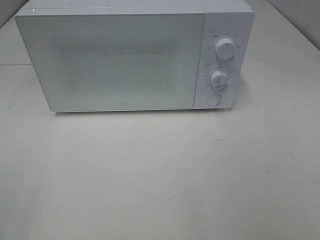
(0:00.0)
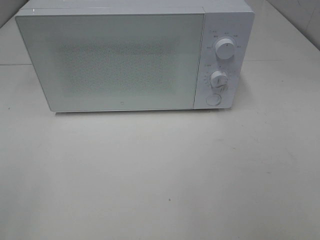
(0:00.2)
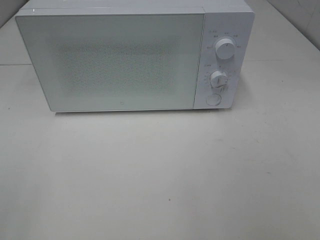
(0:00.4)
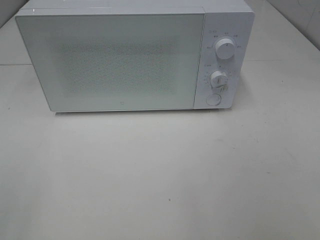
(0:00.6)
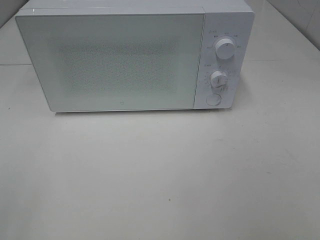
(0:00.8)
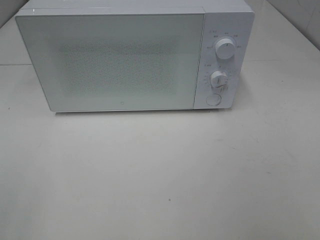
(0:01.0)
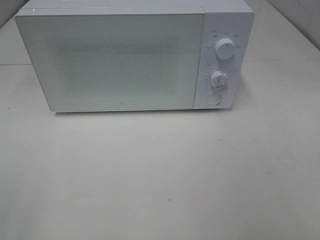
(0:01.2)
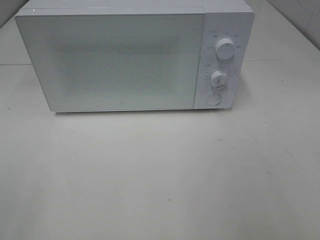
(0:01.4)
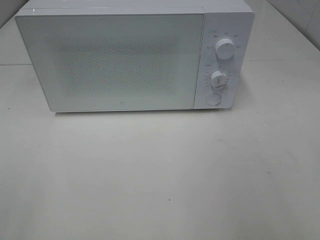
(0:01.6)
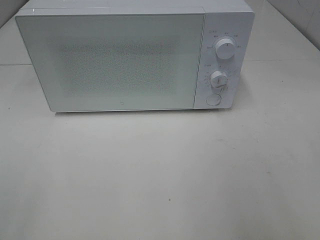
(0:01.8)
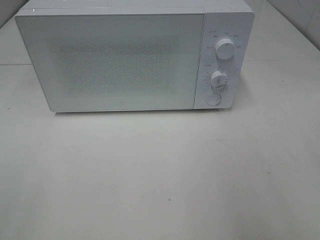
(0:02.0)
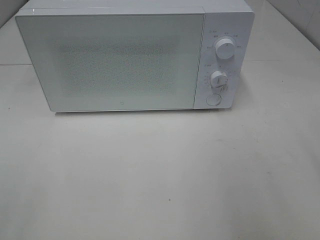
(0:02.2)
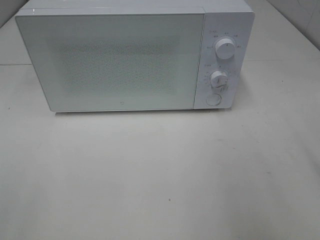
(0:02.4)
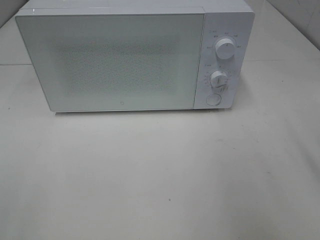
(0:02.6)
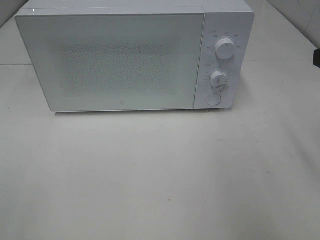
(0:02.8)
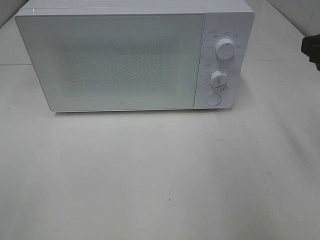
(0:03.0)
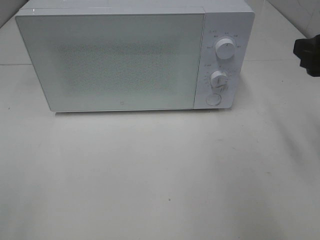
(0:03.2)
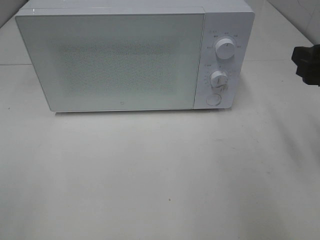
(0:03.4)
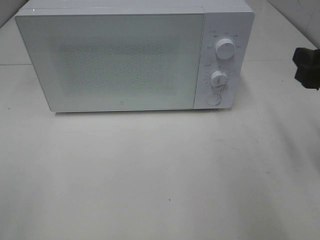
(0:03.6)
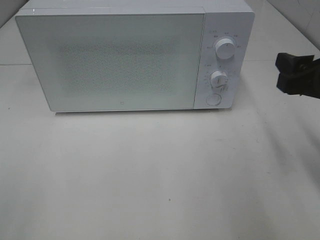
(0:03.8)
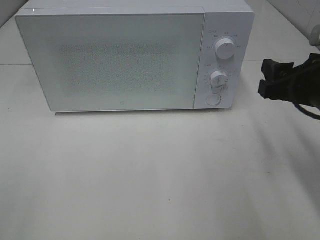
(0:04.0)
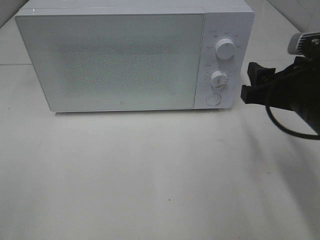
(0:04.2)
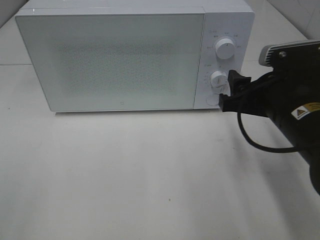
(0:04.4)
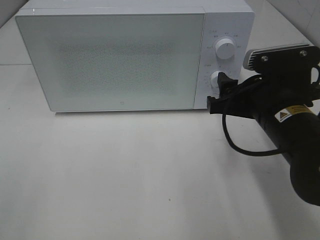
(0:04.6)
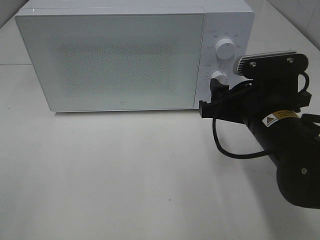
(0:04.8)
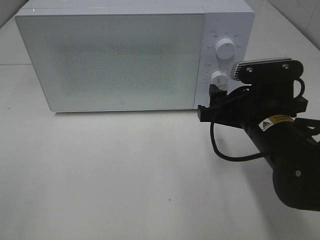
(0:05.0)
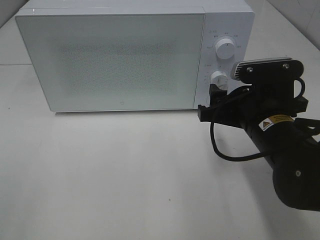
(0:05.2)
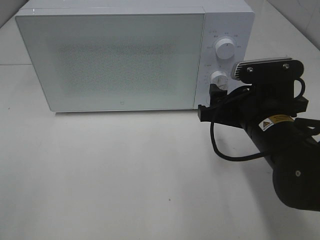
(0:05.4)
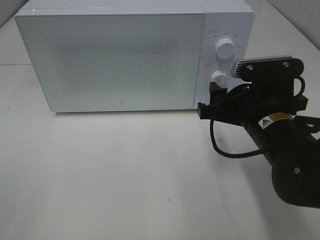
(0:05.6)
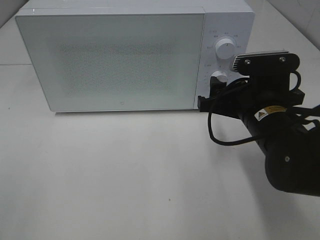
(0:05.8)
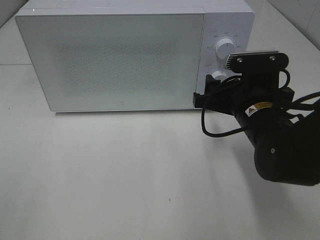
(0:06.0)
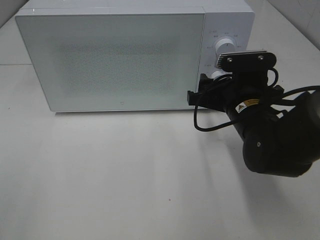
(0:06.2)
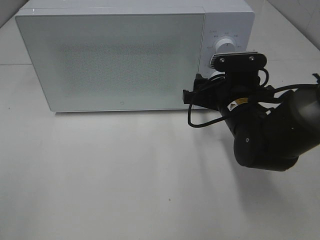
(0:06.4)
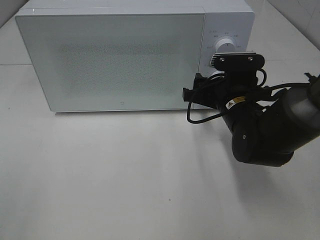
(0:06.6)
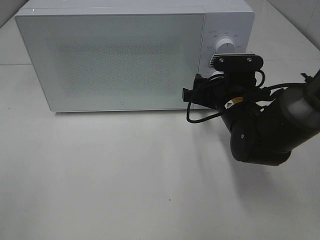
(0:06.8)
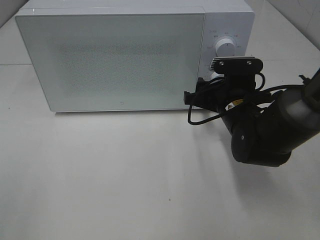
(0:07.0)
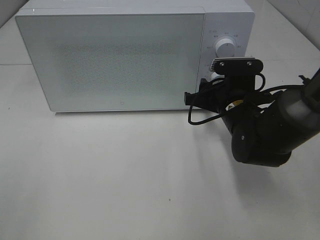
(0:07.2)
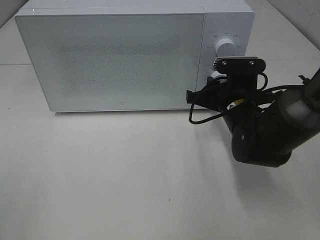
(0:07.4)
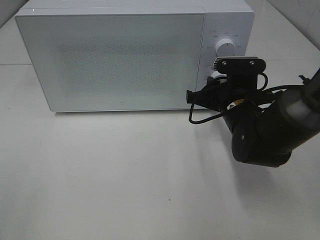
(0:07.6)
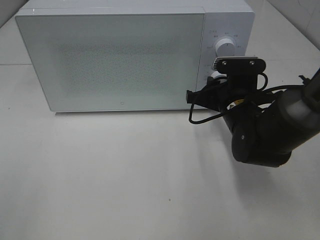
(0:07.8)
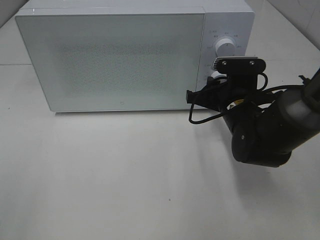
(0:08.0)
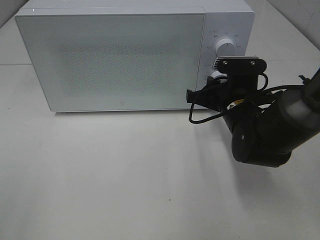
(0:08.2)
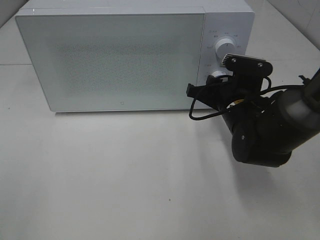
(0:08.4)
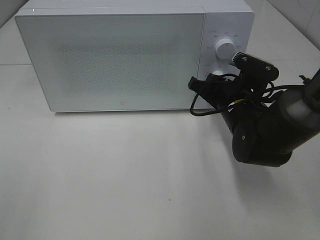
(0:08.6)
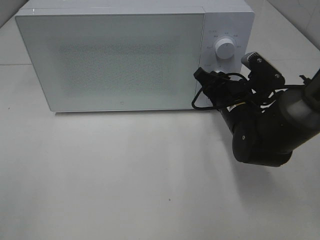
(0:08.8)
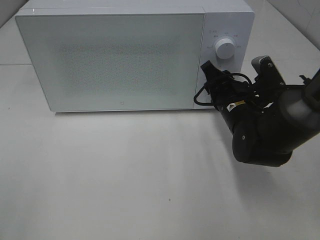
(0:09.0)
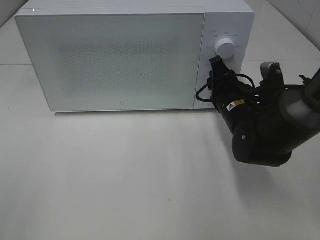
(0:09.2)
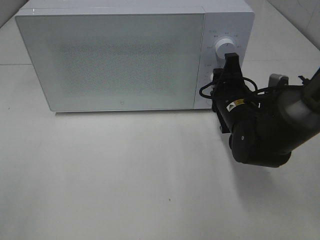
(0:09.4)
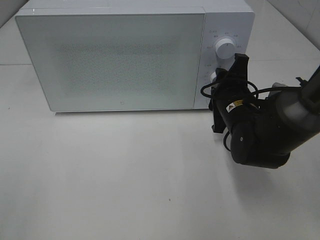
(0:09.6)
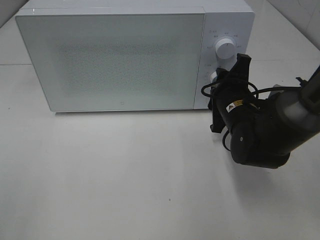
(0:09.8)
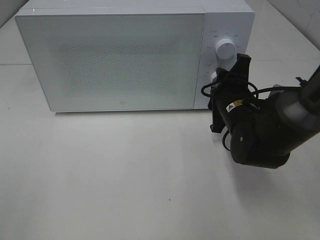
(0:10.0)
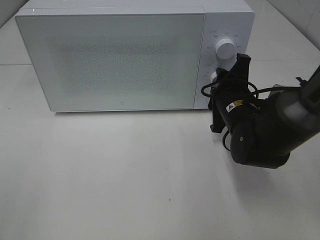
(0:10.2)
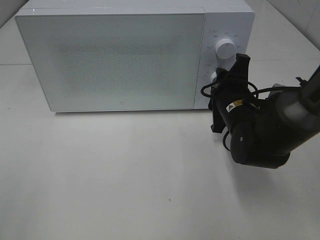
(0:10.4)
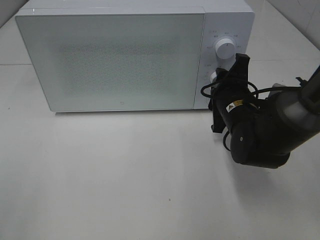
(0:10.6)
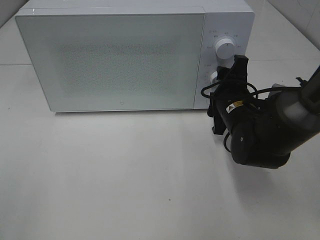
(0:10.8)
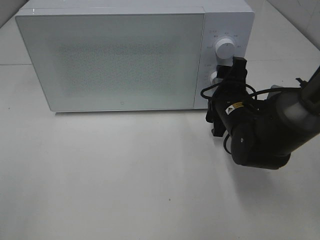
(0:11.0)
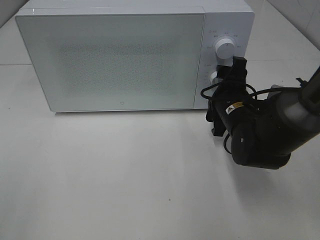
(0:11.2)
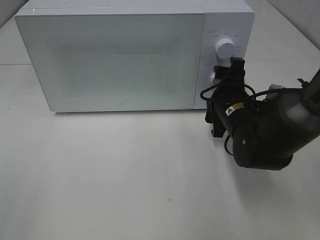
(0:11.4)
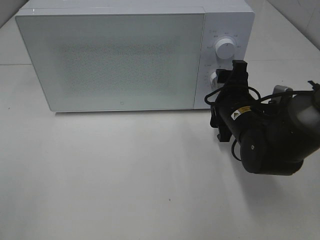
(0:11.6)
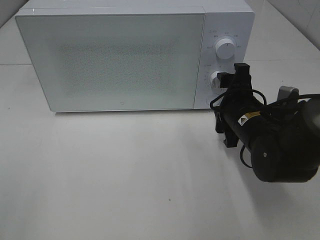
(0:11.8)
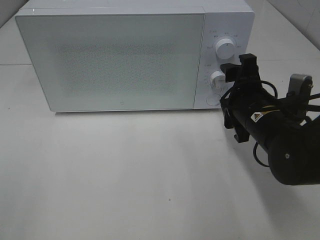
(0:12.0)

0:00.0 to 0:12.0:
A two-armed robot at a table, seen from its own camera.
Task of the whole recording: Heat Sandwich.
0:01.6 to 0:03.0: The right gripper travels forward by approximately 15 cm.
0:03.0 to 0:04.4: The right gripper is displaced downward and to the left by about 15 cm.
0:04.4 to 0:06.0: The right gripper shifts by about 5 cm.
0:06.0 to 0:07.6: The right gripper changes place by about 5 cm, and closes.
0:10.4 to 0:12.0: The right gripper ends up roughly 5 cm from where it was, and opens its fingers.

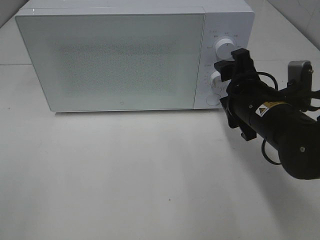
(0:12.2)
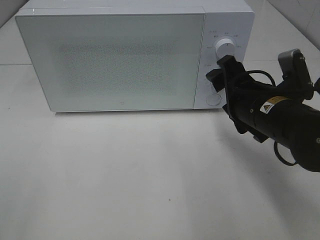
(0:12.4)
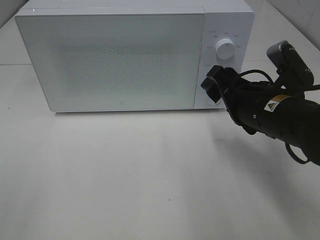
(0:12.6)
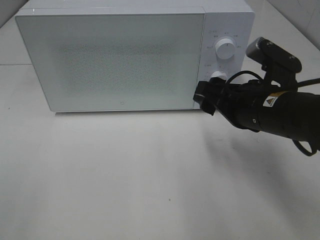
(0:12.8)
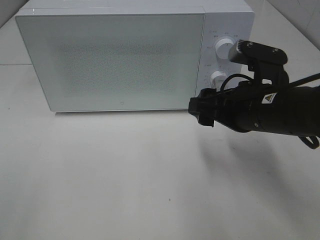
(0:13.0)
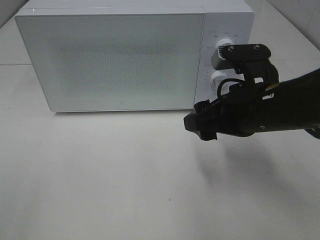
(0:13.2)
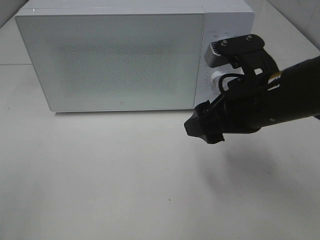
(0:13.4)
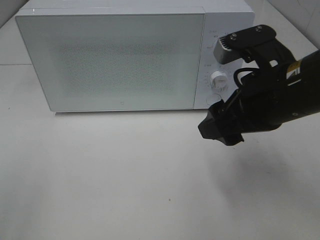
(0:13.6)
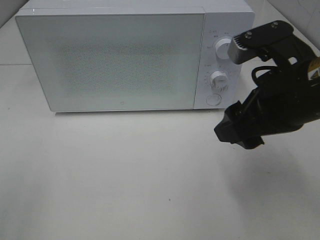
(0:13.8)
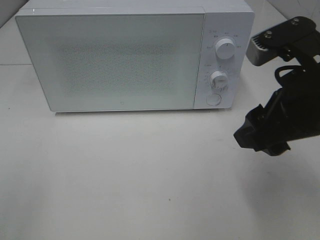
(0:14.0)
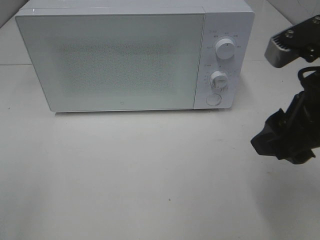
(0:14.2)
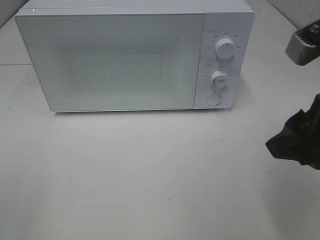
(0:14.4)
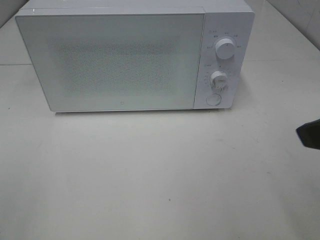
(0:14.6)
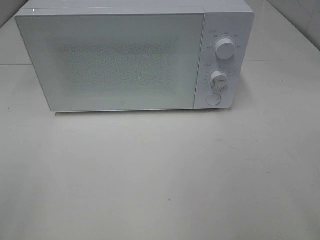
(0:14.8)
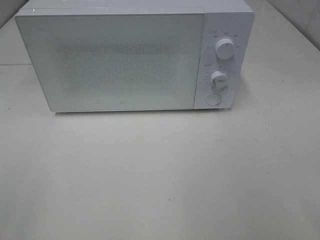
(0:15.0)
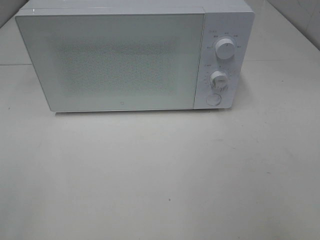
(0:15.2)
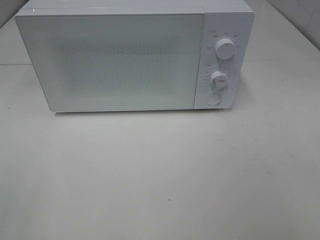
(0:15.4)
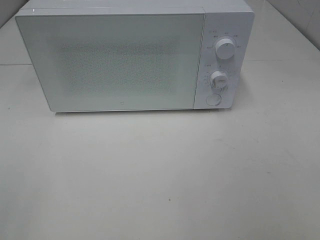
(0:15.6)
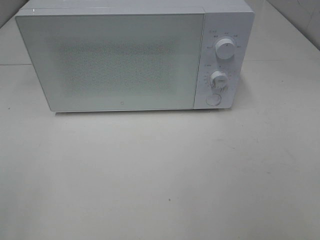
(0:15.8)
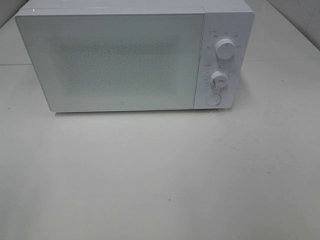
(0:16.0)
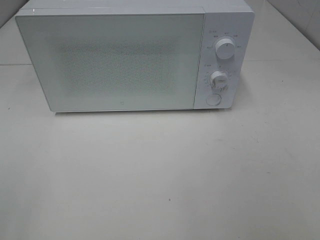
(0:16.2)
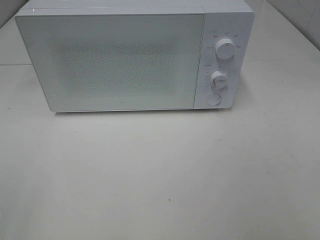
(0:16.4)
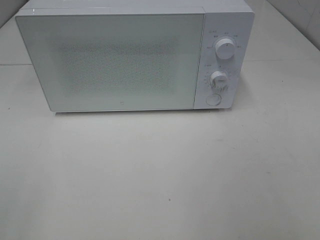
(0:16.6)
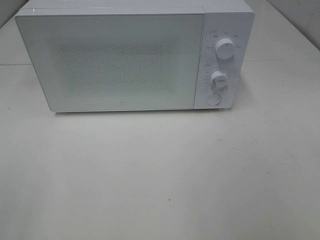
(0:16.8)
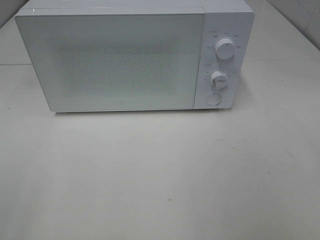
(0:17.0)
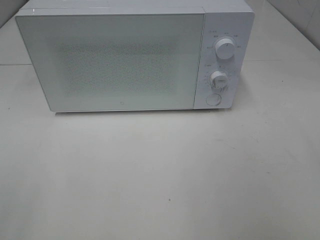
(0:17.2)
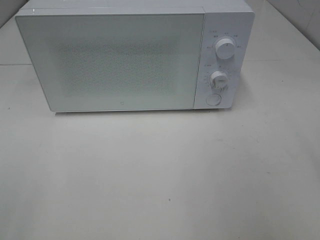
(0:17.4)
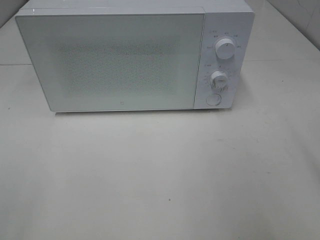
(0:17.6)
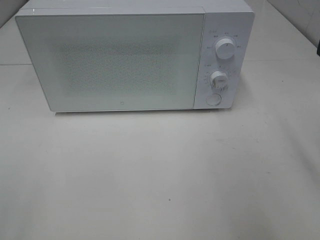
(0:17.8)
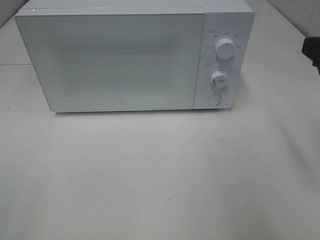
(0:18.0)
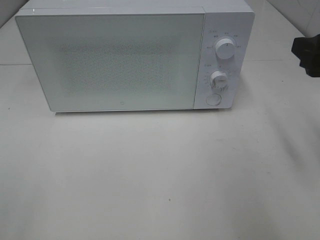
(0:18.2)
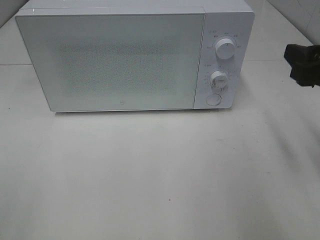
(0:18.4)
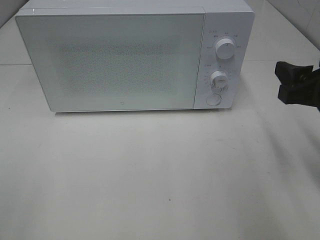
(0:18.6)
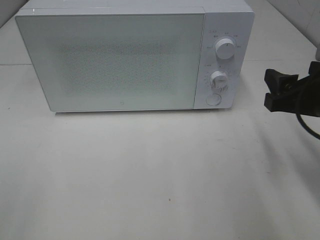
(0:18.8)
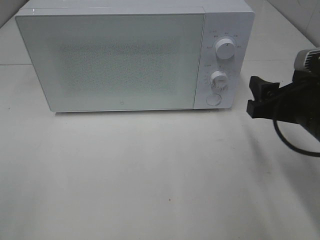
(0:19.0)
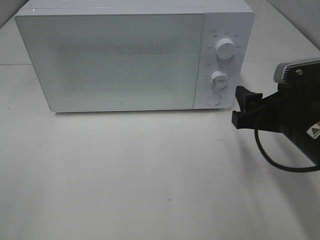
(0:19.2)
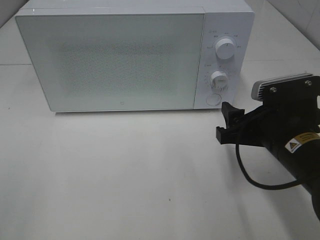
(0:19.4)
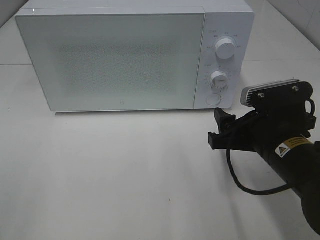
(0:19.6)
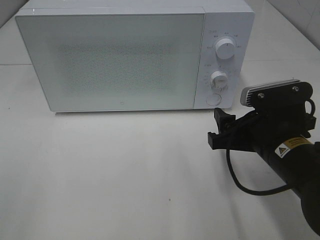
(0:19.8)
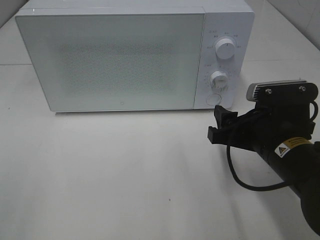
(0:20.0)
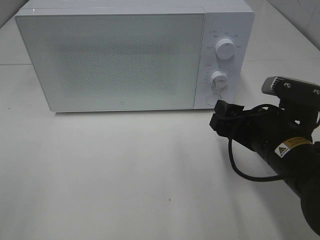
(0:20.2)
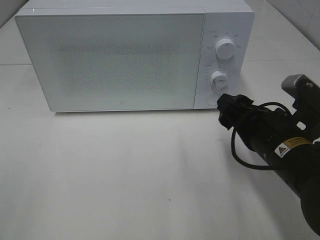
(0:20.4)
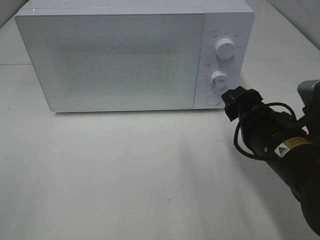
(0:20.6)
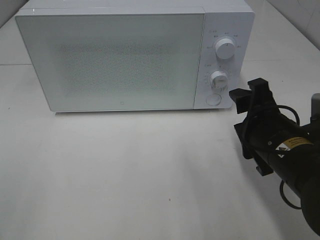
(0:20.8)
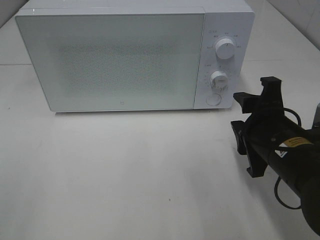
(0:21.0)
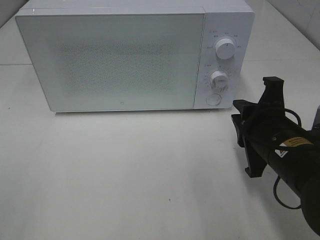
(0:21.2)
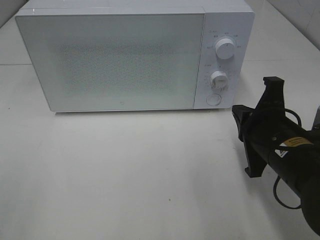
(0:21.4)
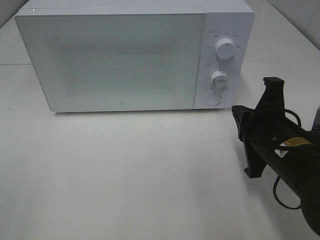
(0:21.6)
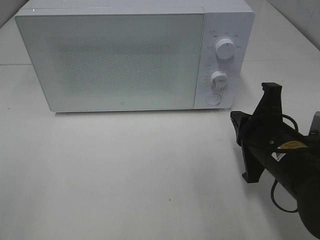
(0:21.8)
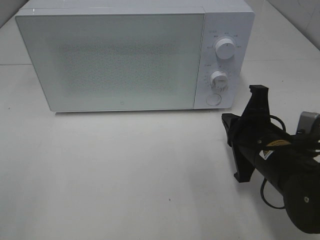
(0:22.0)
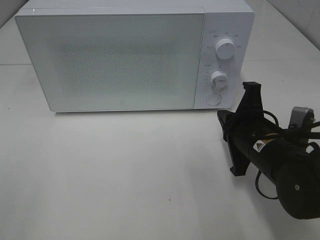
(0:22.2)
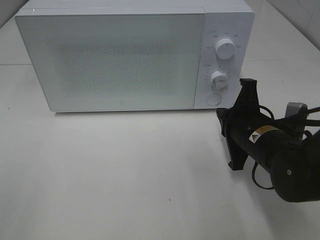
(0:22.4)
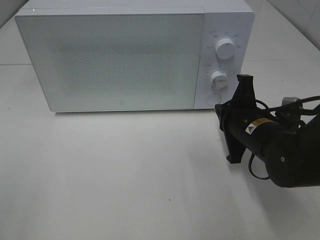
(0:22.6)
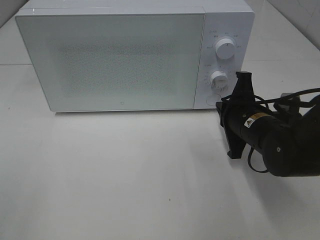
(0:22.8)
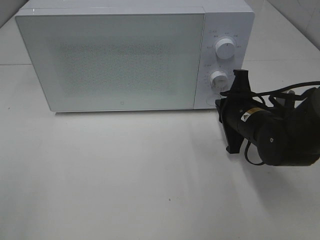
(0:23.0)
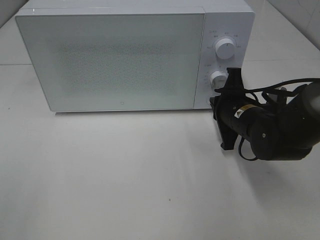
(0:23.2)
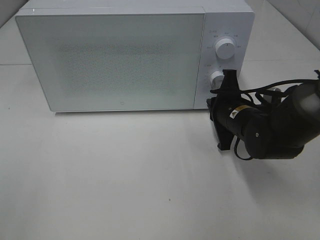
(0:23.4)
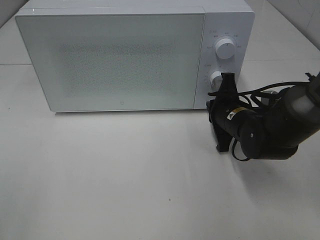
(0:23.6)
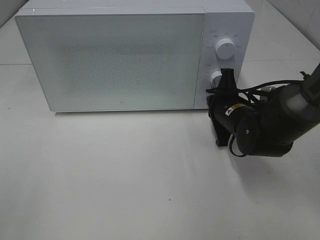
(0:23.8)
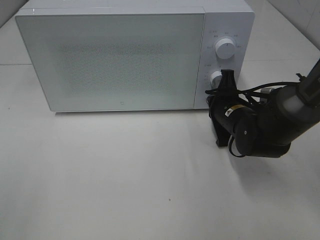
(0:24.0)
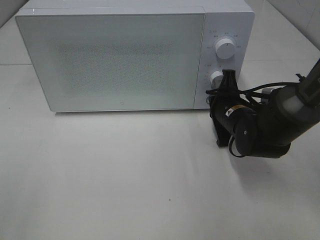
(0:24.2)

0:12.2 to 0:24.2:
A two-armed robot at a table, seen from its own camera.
Task of the whole recording: Heat Sandwich.
0:12.2 to 0:13.8: The right gripper is displaced upward and backward by roughly 10 cm.
0:13.8 to 0:15.2: The right gripper shifts about 20 cm backward and to the right.
0:16.6 to 0:18.2: The right gripper moves forward, approximately 20 cm.
0:18.2 to 0:19.8: The right gripper shifts about 15 cm downward and to the left.
0:19.8 to 0:21.2: The right gripper closes its fingers.
0:21.2 to 0:22.6: The right gripper travels forward by some 5 cm.
0:22.6 to 0:24.2: The right gripper heads forward, covering about 5 cm.
